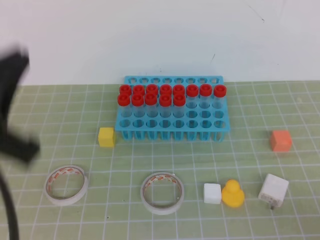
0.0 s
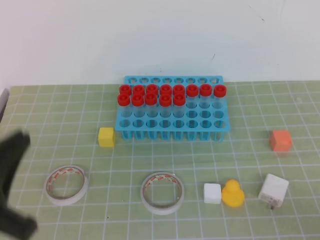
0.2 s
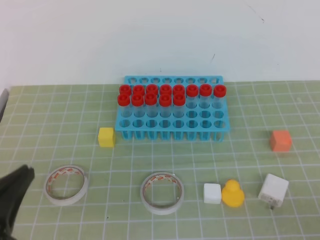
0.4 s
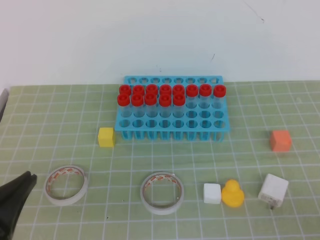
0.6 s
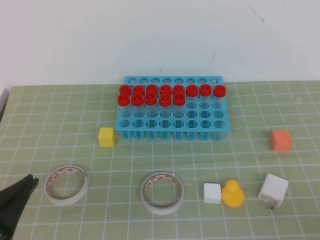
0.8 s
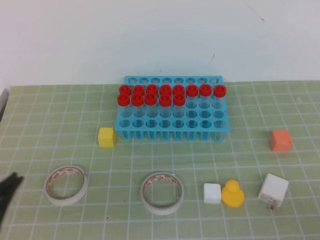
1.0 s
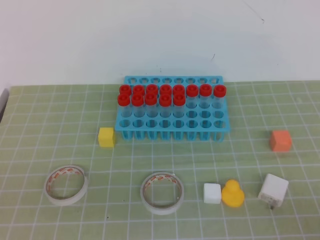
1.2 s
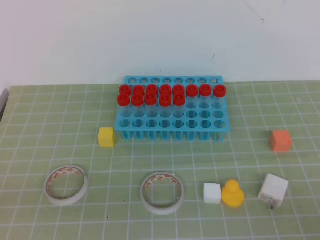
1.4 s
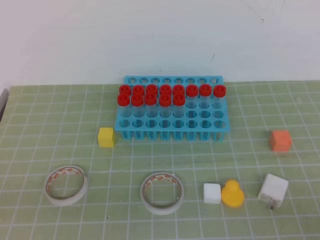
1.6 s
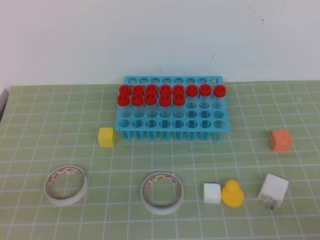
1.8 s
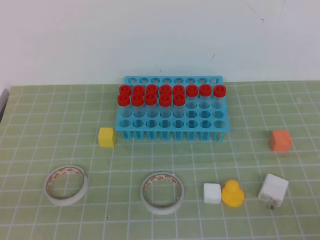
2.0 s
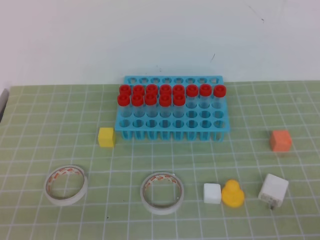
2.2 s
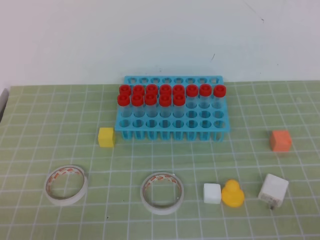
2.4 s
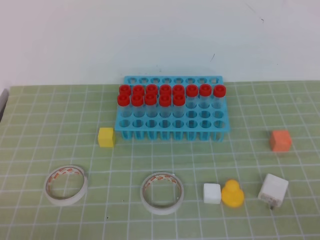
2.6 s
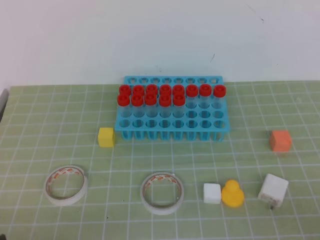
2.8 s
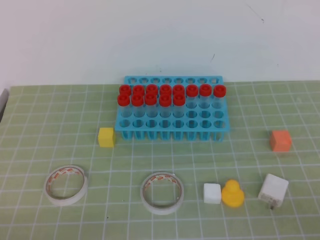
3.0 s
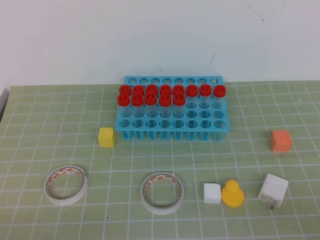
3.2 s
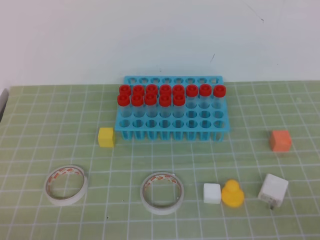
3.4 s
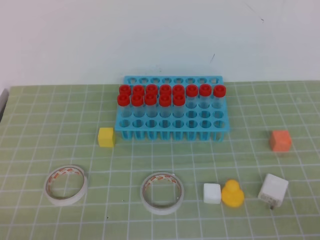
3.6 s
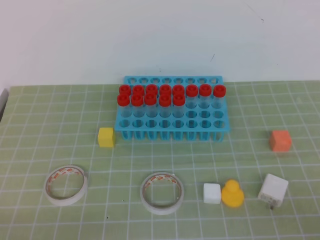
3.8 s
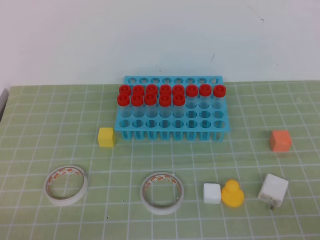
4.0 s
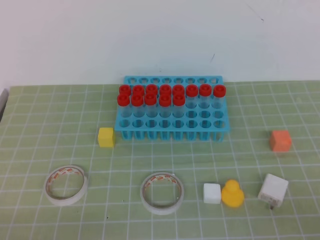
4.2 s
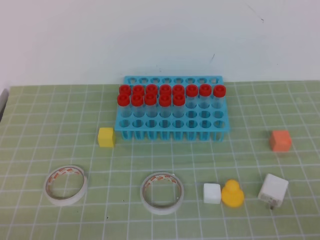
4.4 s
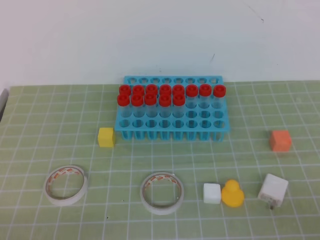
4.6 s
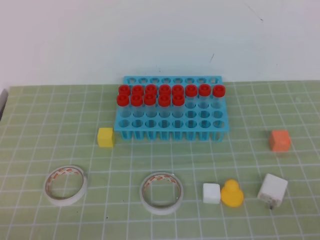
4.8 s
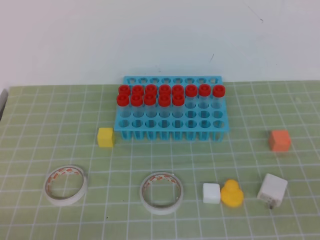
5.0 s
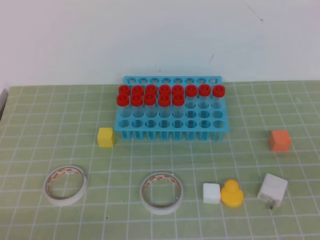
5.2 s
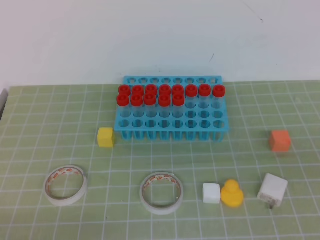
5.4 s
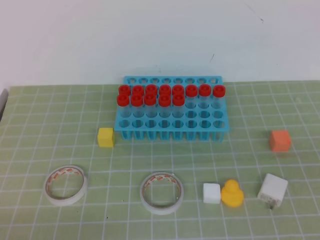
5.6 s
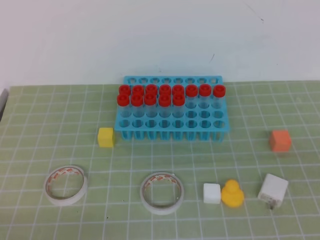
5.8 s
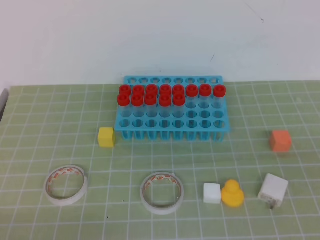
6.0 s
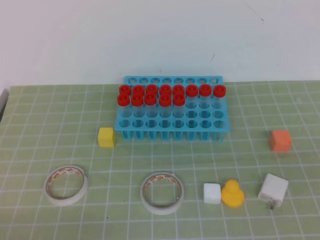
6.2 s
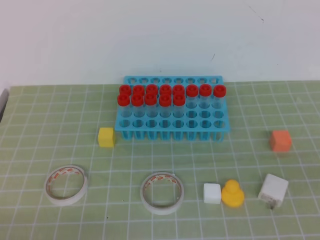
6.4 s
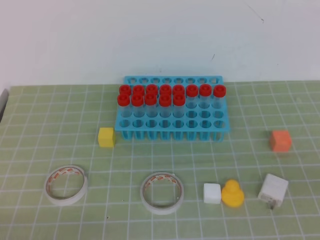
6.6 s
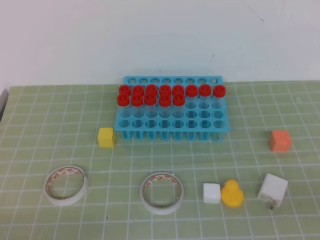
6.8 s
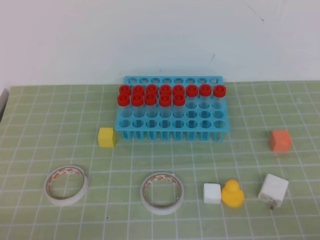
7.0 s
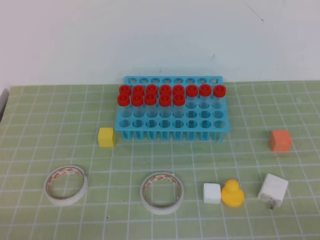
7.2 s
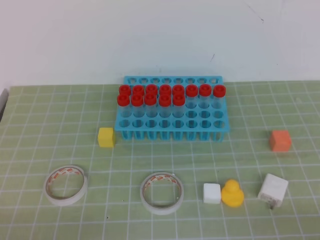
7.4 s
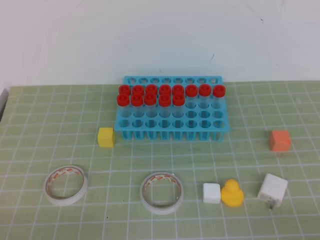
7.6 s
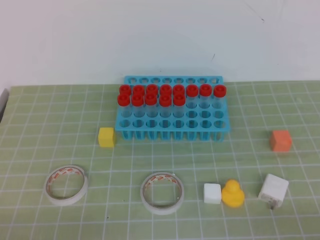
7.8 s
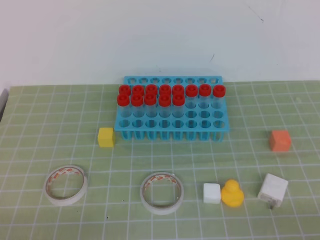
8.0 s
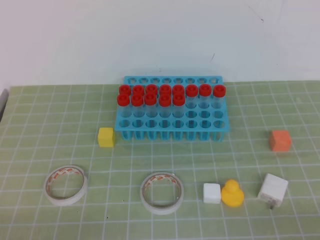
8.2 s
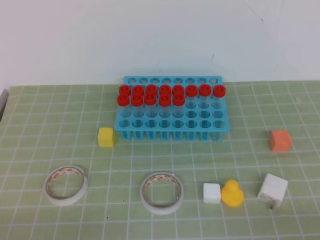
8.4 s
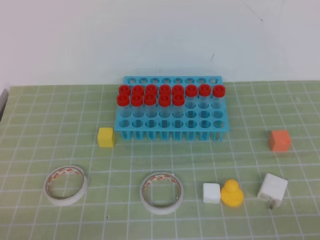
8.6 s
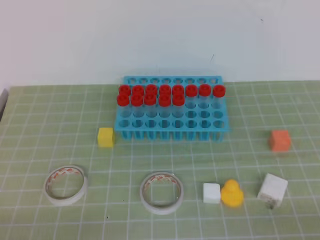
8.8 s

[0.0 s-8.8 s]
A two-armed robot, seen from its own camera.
0.0 to 1.4 s: The left gripper moves downward and backward, roughly 15 cm.
7.4 to 8.8 s: Neither gripper changes place.

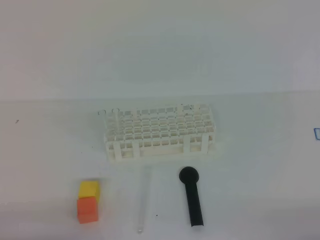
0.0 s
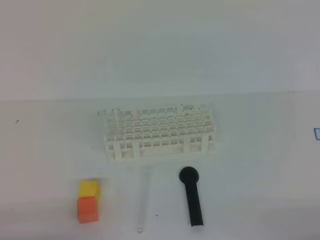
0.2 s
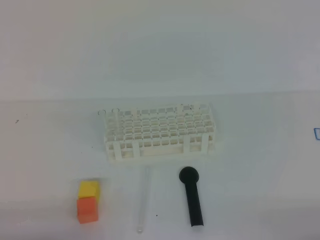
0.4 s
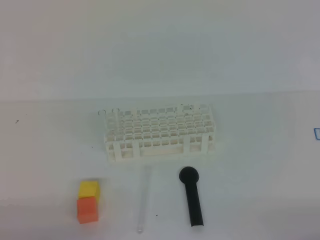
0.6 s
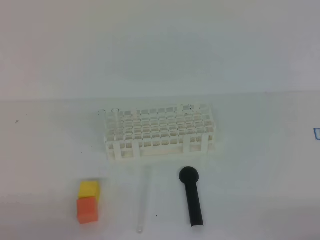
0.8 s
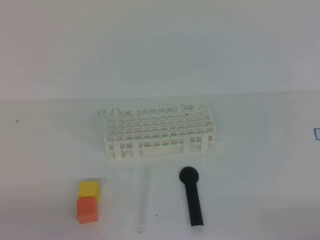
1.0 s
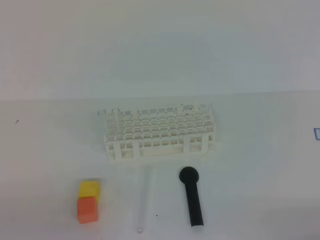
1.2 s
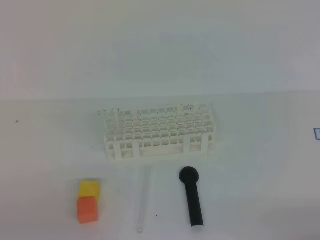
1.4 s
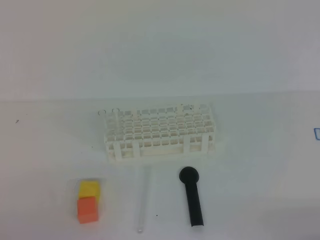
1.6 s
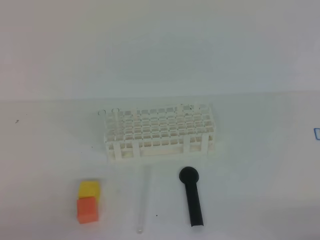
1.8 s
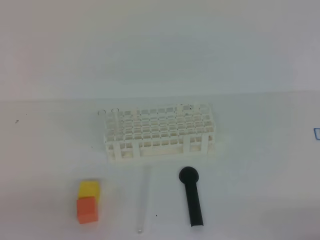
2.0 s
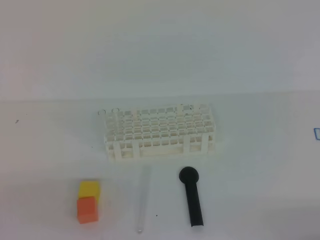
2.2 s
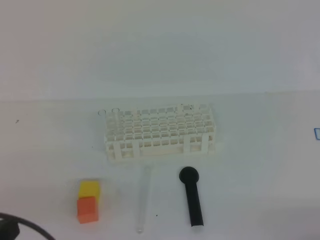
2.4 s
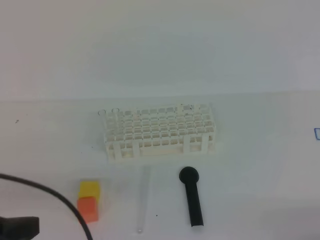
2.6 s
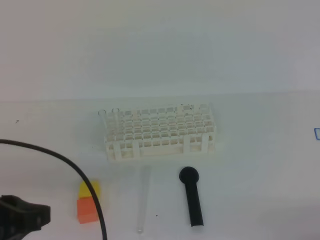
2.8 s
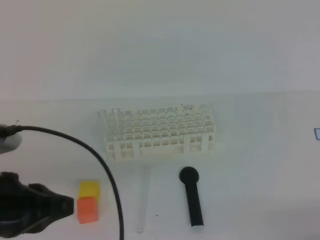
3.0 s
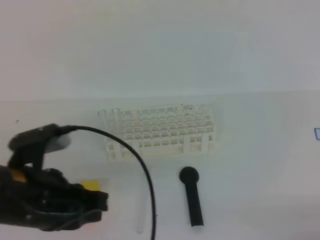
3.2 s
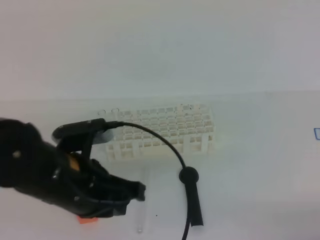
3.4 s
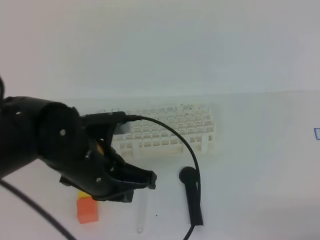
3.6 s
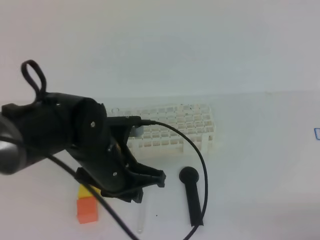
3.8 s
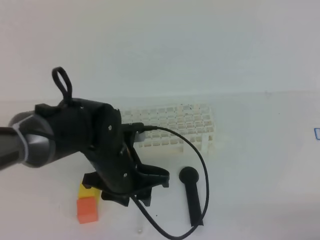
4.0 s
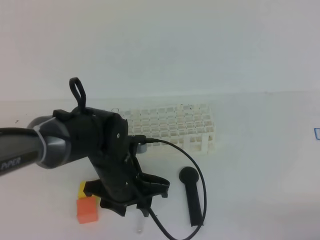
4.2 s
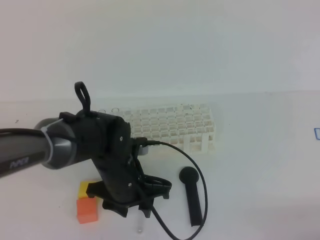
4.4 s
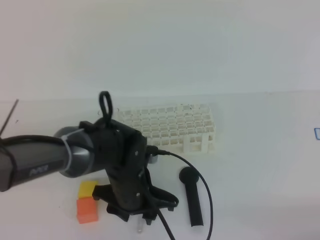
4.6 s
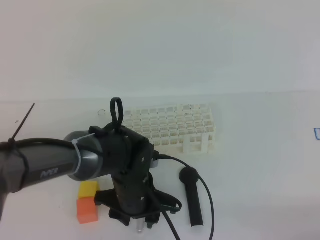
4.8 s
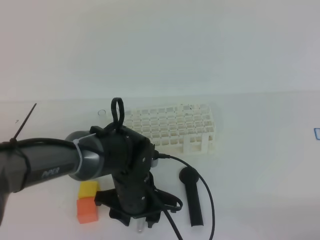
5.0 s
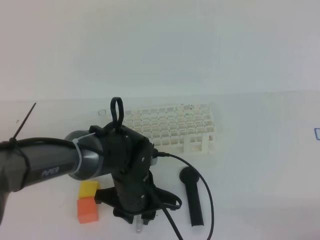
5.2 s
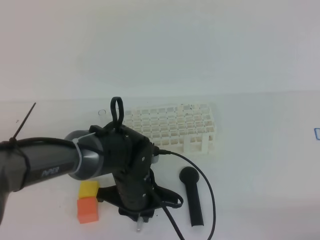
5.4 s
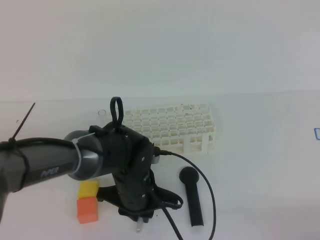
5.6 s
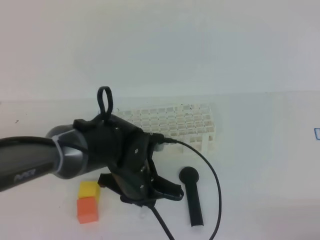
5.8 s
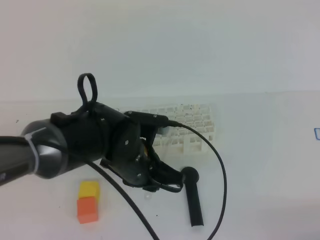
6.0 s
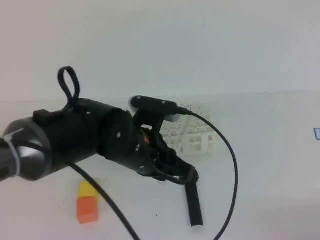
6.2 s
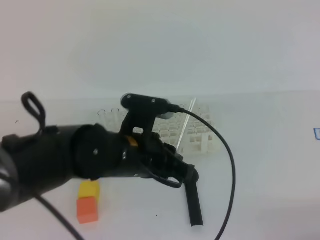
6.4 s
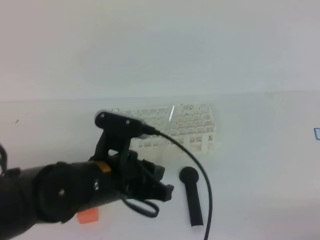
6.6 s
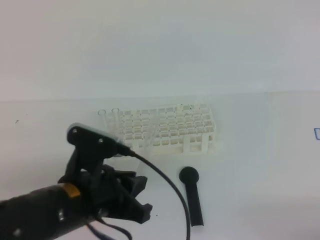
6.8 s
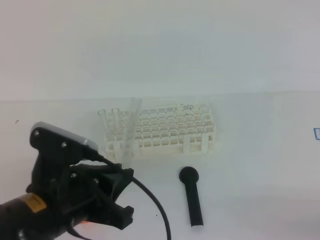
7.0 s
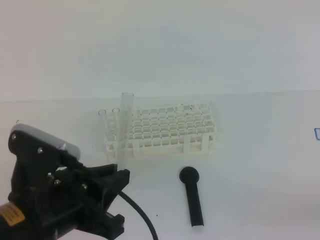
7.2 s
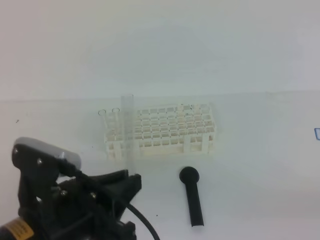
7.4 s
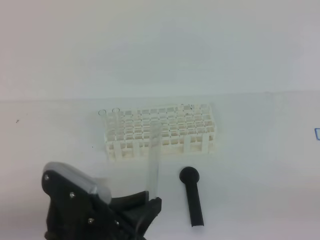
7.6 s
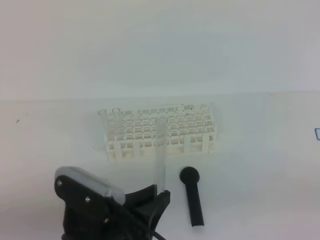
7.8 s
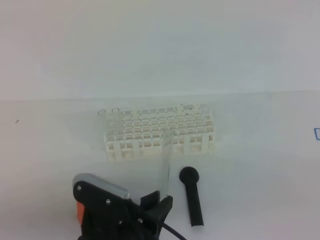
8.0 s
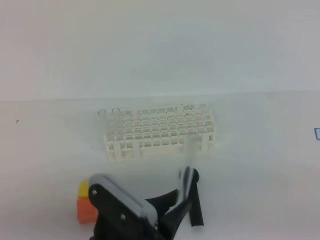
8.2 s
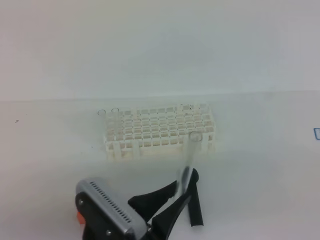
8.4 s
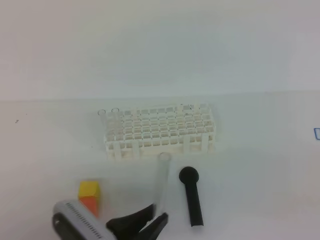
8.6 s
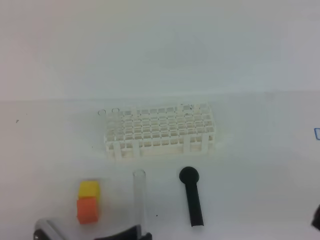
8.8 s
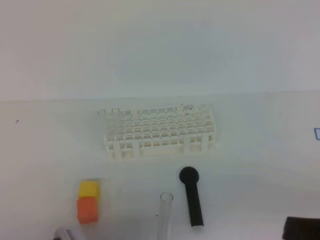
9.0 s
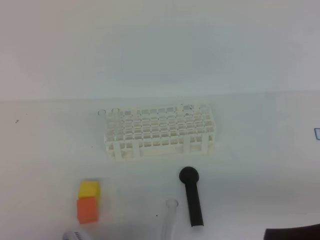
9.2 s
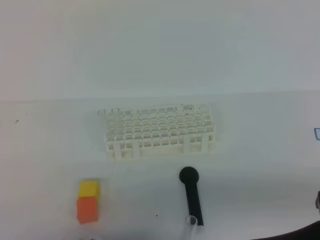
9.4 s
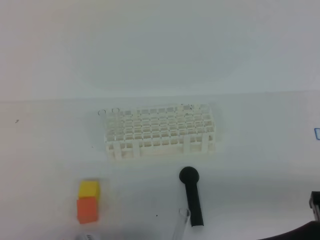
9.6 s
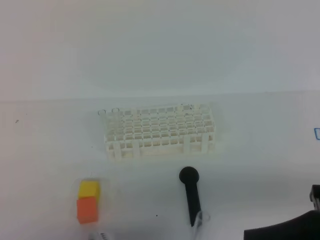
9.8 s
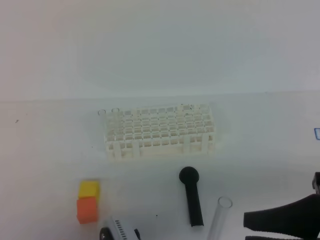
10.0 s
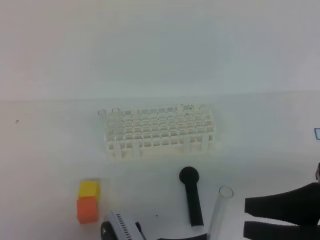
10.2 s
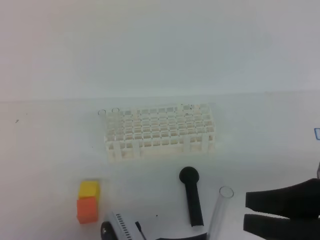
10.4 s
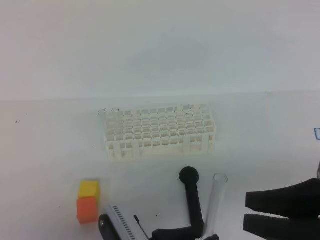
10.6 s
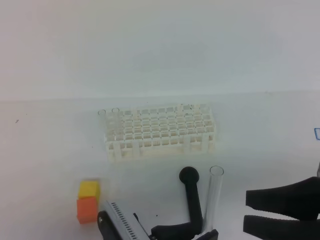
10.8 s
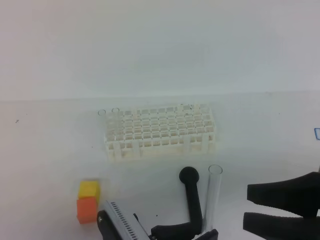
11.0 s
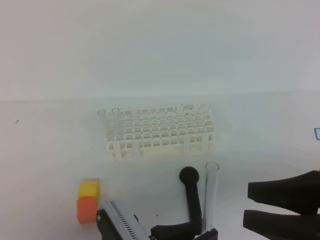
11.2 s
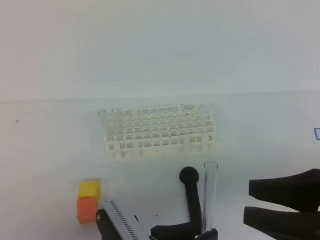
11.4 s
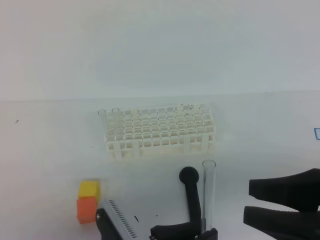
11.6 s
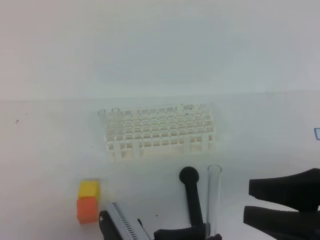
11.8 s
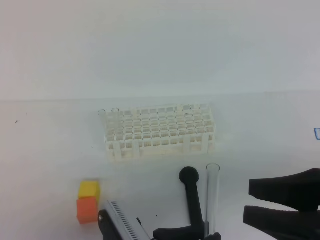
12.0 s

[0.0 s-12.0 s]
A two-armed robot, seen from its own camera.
1.6 to 3.0 s: The left gripper is displaced forward, to the right and upward by roughly 15 cm.
3.0 to 4.4 s: The left gripper shifts approximately 25 cm to the right, forward and downward, and opens its fingers.
4.4 to 6.0 s: The left gripper closes up.
6.0 to 7.6 s: The right gripper heads upward, covering approximately 5 cm; the left gripper shifts roughly 15 cm backward and to the left.
7.6 to 9.0 s: The right gripper goes some 10 cm to the left and upward, while the left gripper goes approximately 10 cm downward.
9.0 to 10.4 s: The left gripper moves to the right, some 5 cm, while the right gripper ends up about 5 cm from where it was, and opens.
10.4 to 12.0 s: The grippers make only small movements.

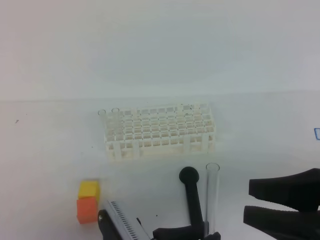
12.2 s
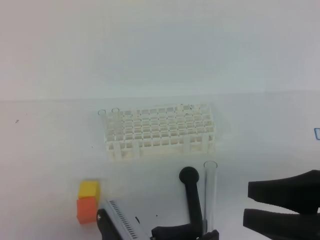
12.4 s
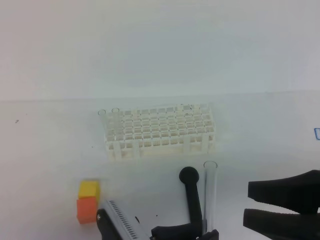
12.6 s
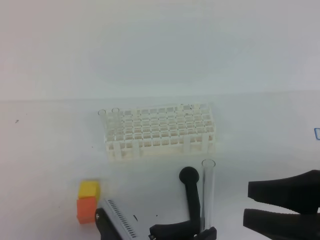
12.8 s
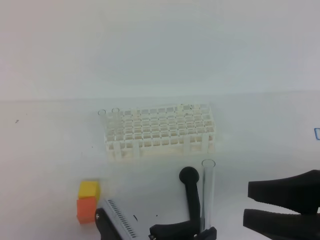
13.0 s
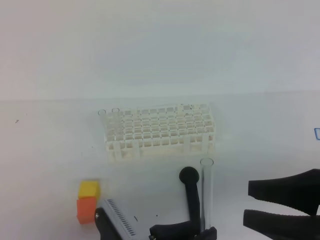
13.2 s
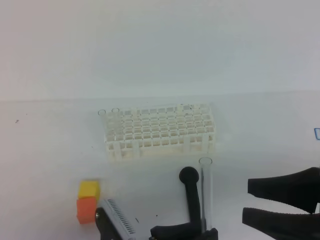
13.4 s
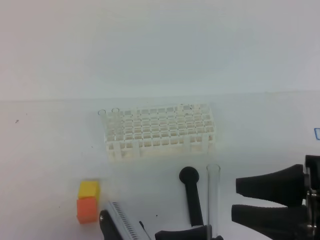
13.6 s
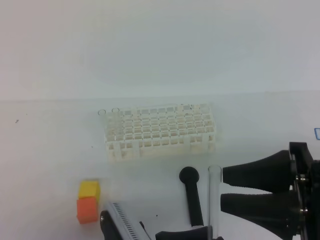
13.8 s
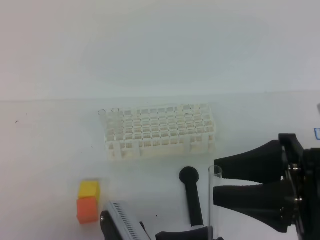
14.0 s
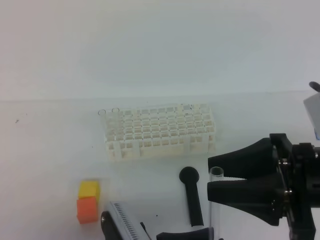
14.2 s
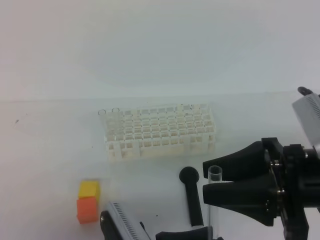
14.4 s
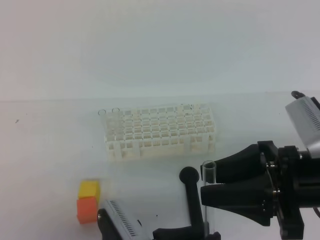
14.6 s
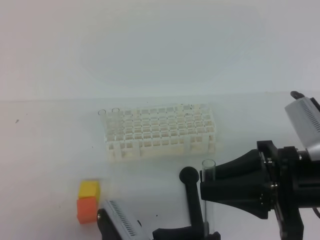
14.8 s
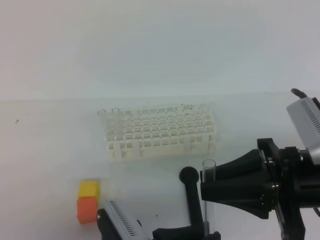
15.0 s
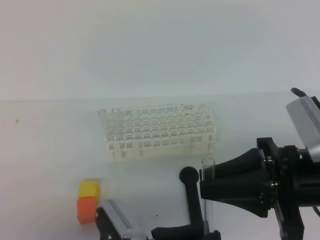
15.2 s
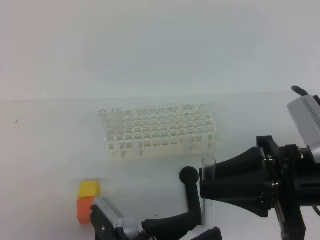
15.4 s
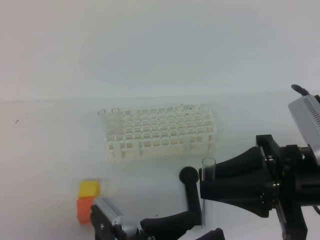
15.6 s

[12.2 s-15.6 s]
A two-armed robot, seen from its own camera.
12.2 to 13.8 s: There are only small adjustments of the grippers.
13.8 to 15.6 s: The left gripper opens up. The right gripper closes up.
